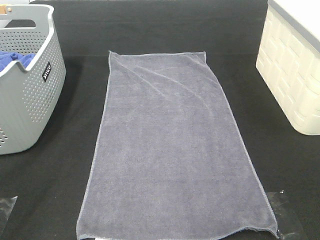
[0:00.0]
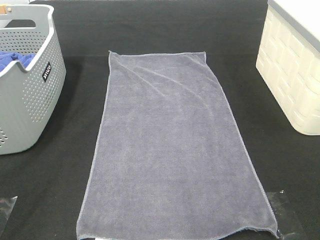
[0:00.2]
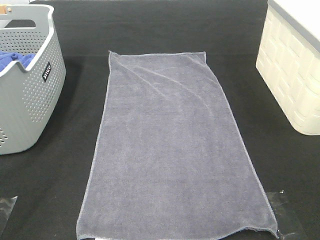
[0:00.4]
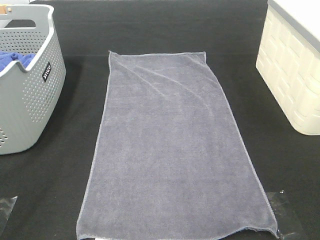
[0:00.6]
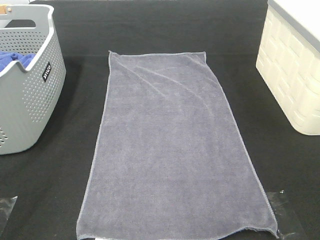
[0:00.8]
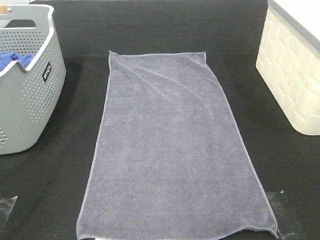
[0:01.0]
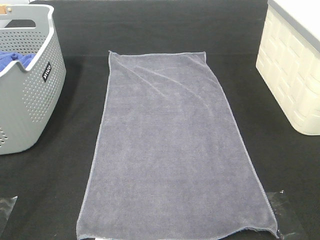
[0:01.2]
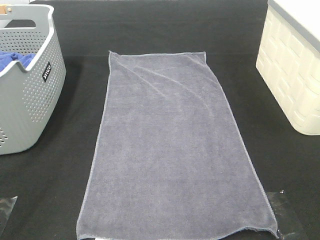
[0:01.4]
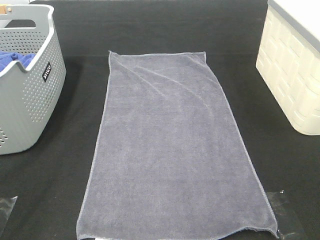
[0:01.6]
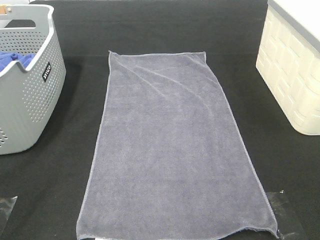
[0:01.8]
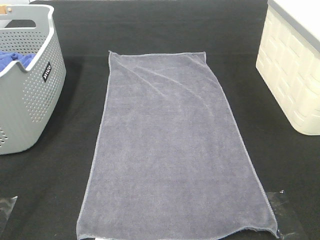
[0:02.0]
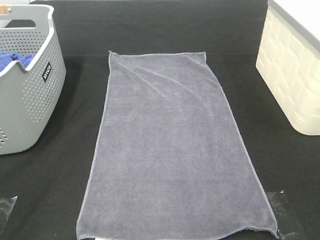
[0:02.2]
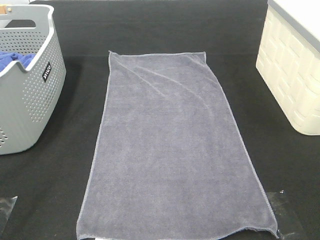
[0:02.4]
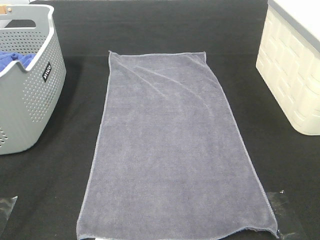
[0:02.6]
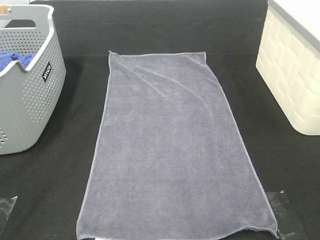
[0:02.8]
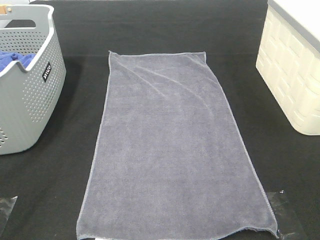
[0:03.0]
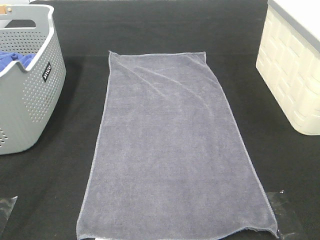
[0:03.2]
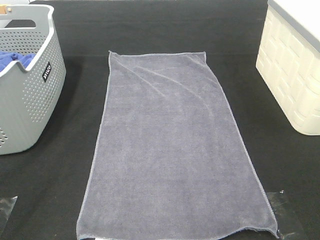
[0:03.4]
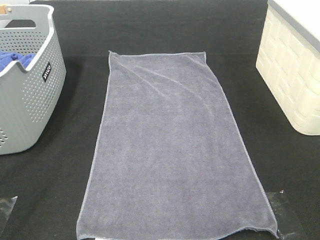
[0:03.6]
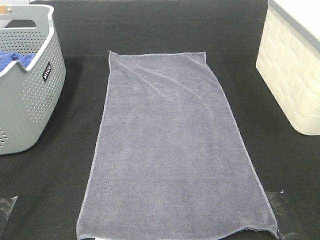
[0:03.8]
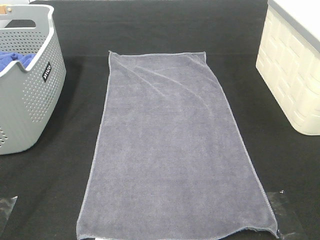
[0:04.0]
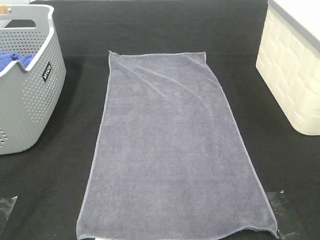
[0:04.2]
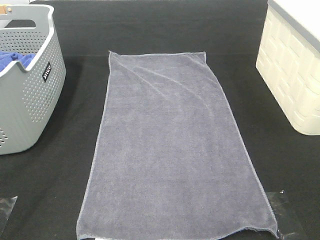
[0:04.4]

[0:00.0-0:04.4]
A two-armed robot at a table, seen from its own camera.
Task of the whole recording: Remove the towel and place it.
3.0 to 4.4 s: The two grippers keep their place.

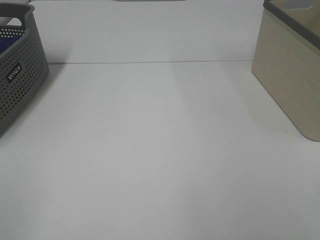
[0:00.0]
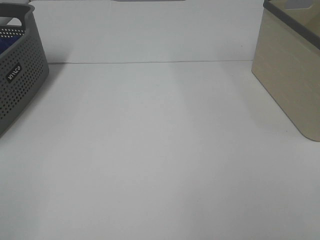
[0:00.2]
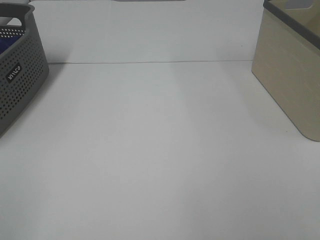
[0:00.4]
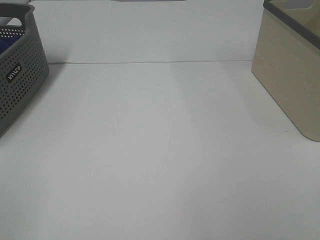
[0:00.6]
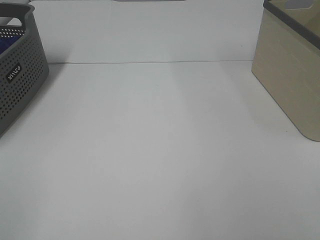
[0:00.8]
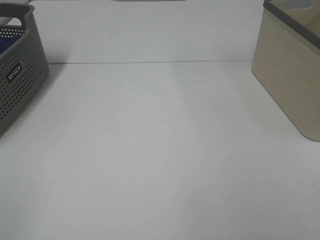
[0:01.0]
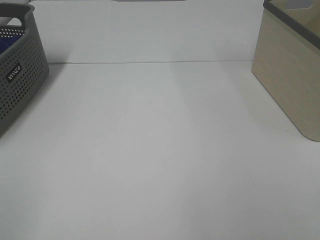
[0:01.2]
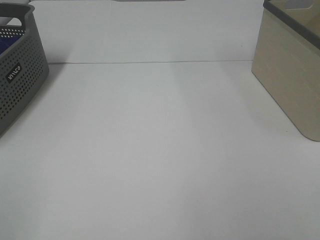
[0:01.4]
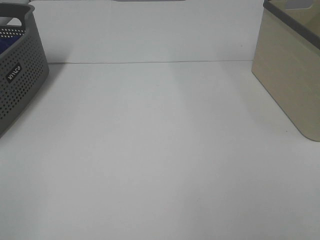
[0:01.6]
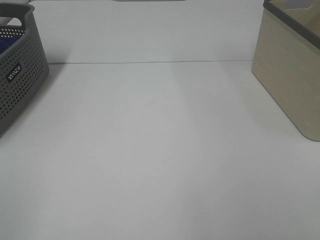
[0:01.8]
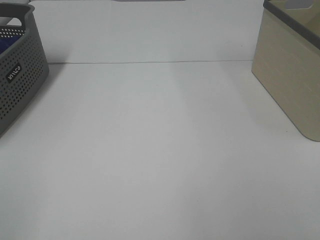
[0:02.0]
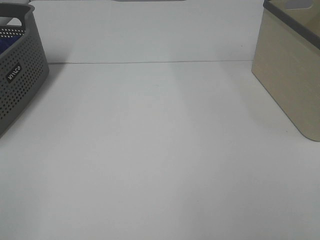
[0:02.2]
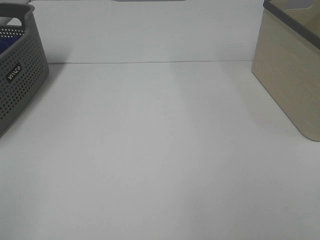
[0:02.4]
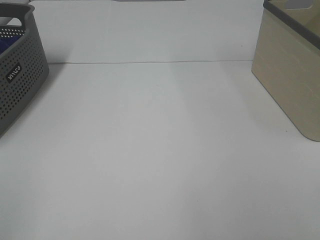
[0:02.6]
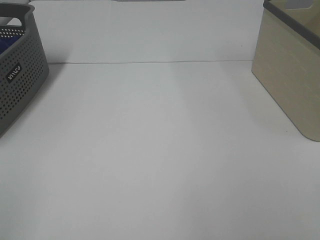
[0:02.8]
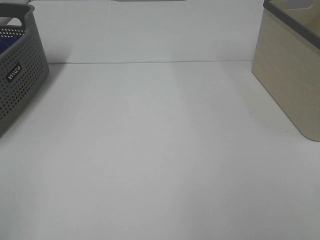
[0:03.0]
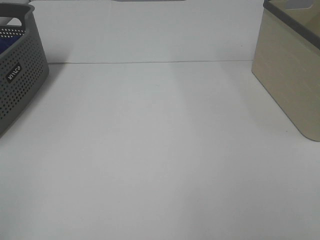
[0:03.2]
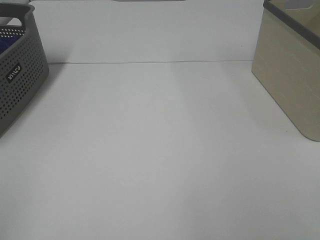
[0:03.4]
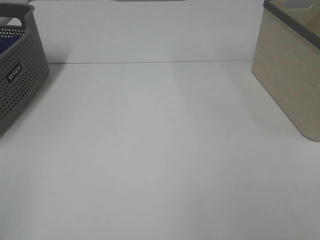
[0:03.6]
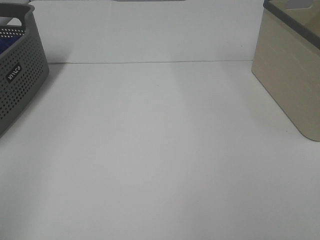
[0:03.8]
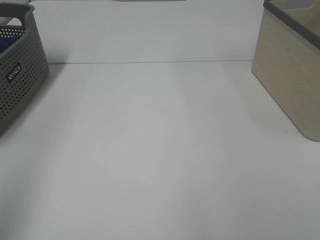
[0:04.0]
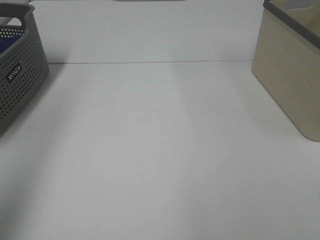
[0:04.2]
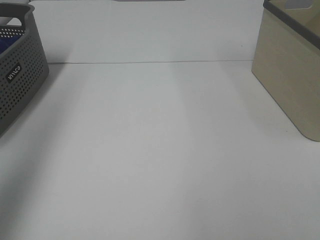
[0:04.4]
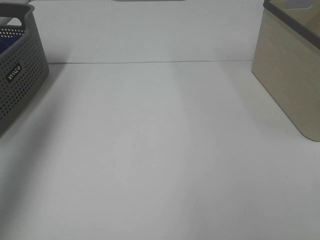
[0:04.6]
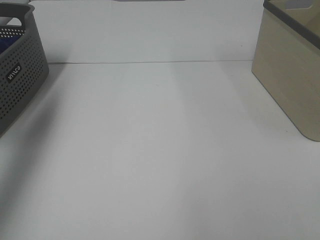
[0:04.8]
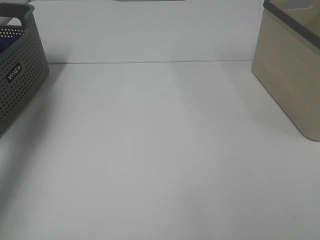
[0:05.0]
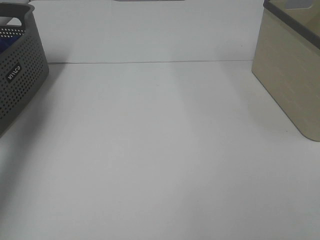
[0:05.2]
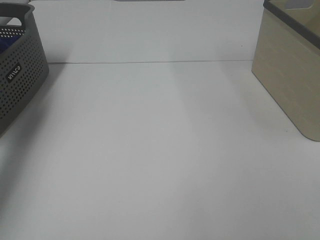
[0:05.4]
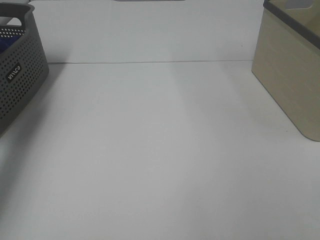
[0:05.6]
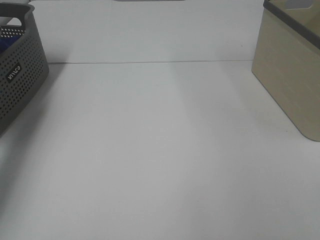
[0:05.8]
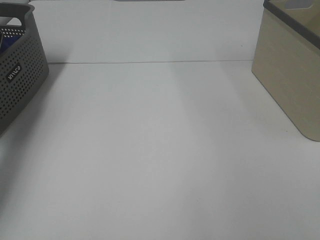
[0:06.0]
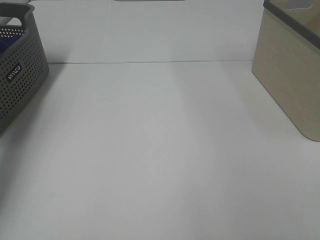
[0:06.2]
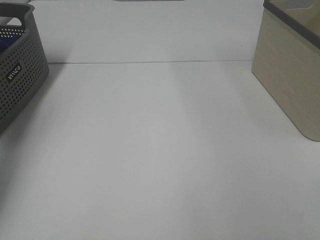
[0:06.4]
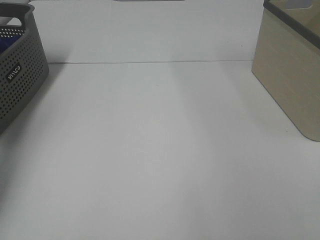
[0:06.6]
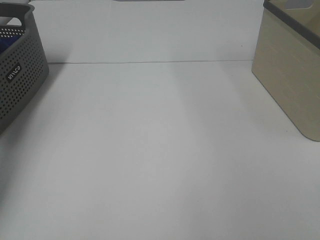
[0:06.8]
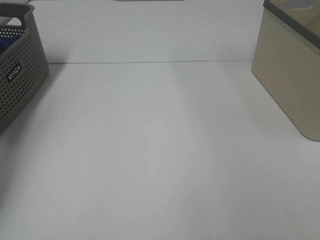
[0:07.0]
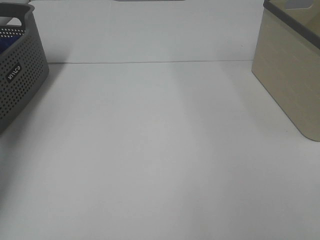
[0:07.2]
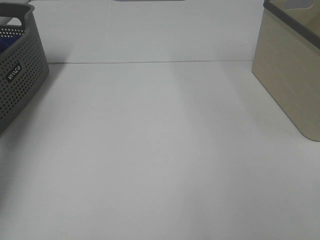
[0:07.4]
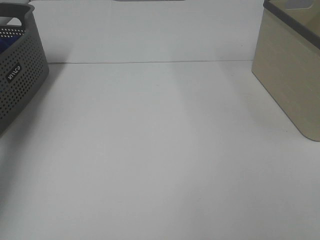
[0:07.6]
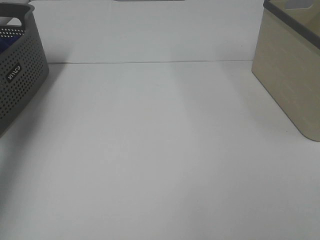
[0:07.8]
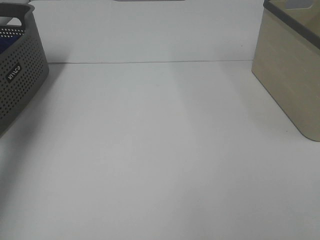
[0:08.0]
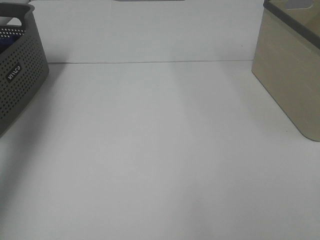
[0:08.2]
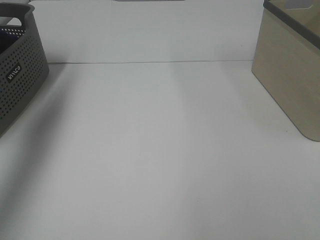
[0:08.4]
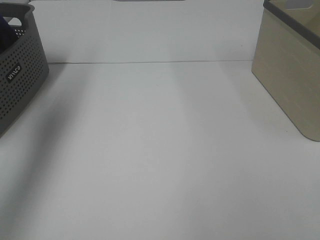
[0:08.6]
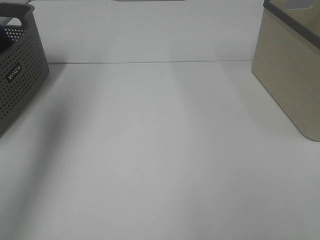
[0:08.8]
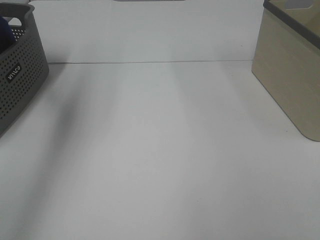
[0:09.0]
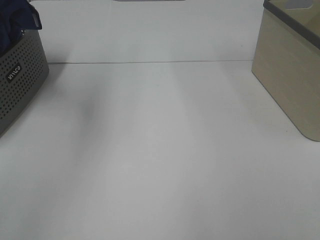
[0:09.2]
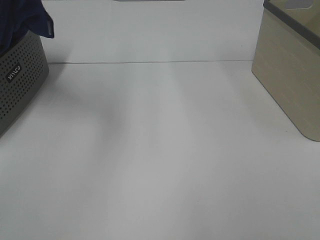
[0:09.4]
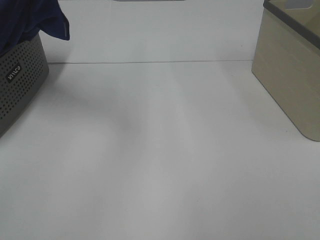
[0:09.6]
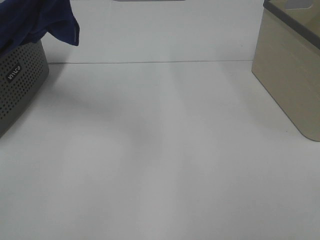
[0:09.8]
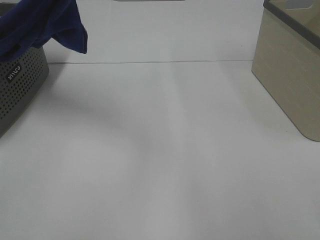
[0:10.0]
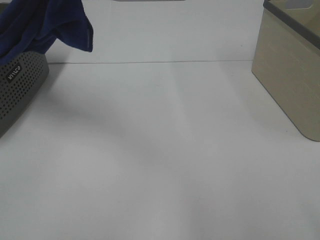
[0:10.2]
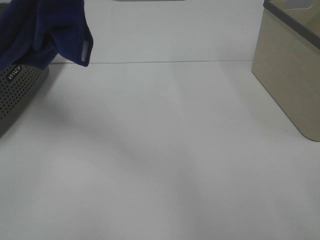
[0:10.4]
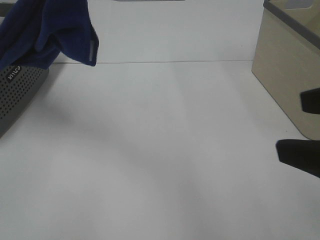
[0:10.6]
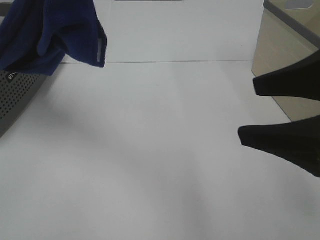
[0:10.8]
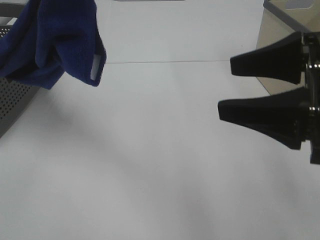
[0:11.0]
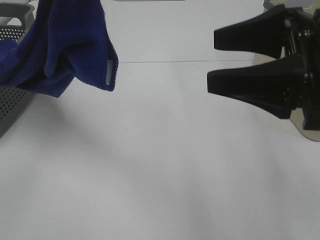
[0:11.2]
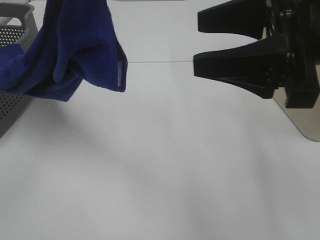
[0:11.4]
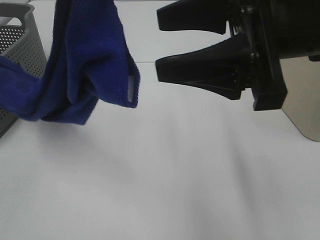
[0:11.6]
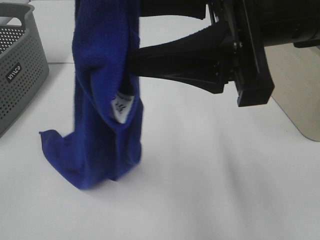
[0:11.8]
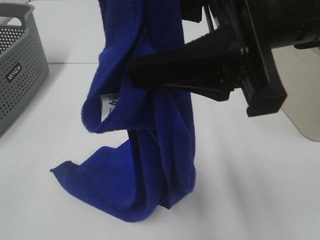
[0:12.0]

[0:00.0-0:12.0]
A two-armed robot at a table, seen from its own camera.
Task of the whole recording: Remove the towel and place it.
0.0 to 3.0 s: Neither gripper changes place.
3.0 to 4.4 s: The left gripper travels forward and upward by roughly 30 cm.
4.4 to 6.0 s: The left gripper is displaced downward and forward by roughly 35 cm.
7.6 to 9.0 s: The left gripper is displaced upward, to the right and backward by roughly 30 cm.
9.0 to 10.4 s: The left gripper goes about 20 cm to the right and backward. Meanwhile the right gripper moves forward, approximately 5 cm.
10.4 to 12.0 s: The right gripper shifts roughly 20 cm forward and to the left.

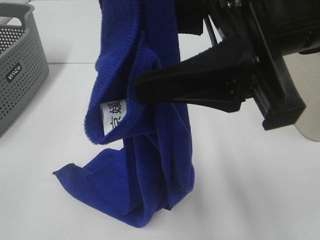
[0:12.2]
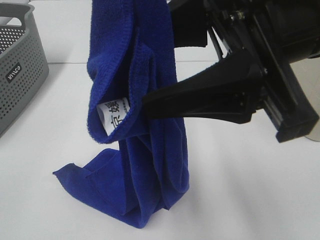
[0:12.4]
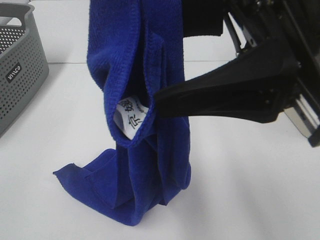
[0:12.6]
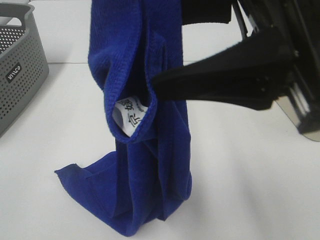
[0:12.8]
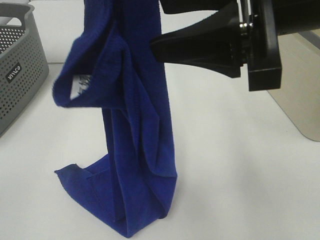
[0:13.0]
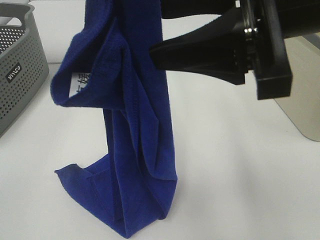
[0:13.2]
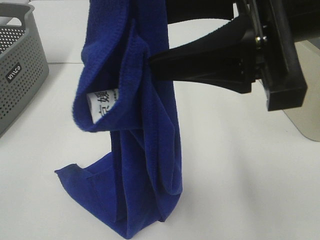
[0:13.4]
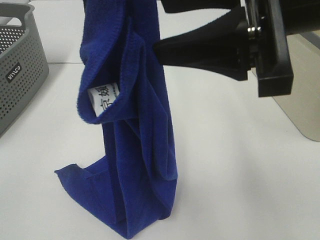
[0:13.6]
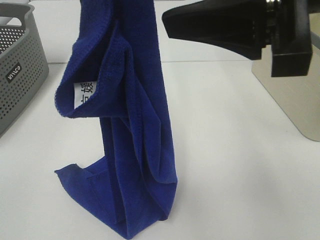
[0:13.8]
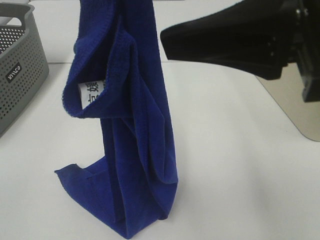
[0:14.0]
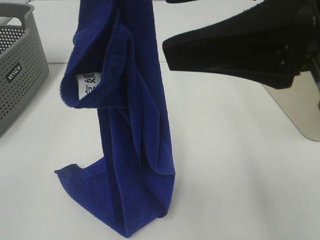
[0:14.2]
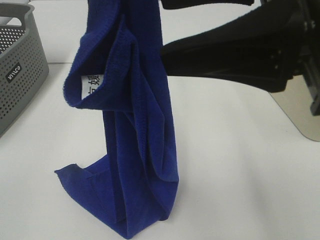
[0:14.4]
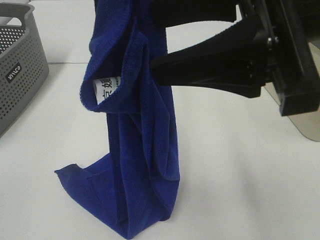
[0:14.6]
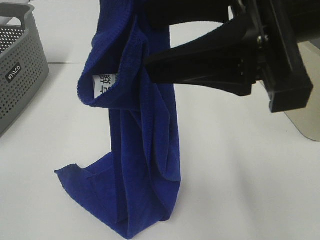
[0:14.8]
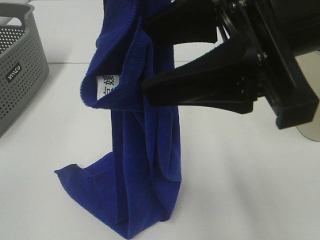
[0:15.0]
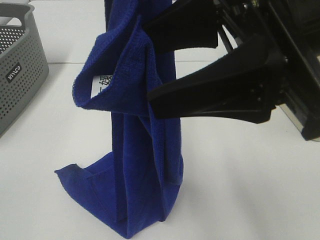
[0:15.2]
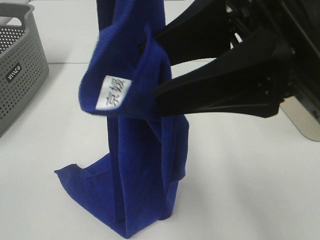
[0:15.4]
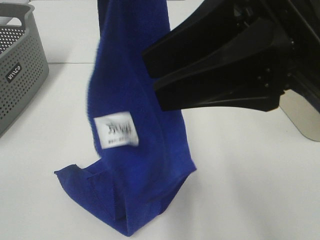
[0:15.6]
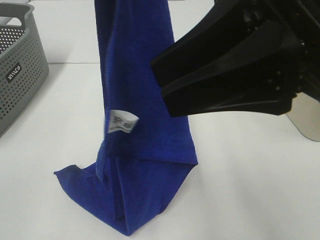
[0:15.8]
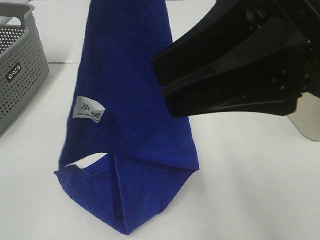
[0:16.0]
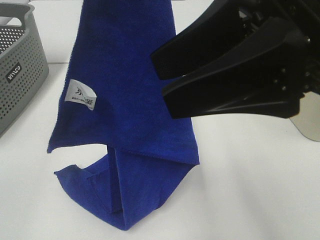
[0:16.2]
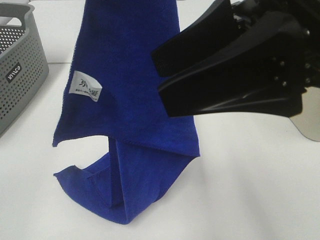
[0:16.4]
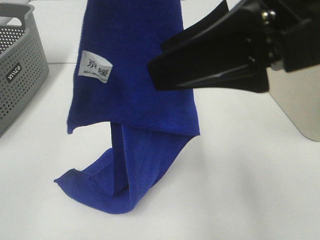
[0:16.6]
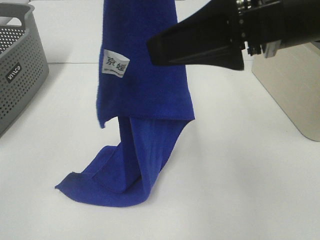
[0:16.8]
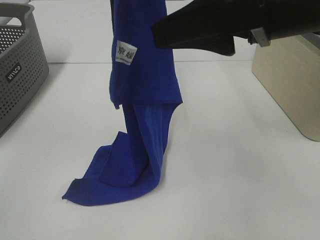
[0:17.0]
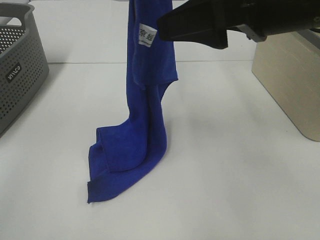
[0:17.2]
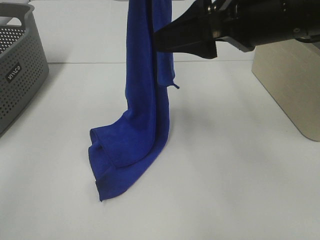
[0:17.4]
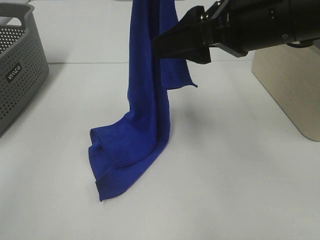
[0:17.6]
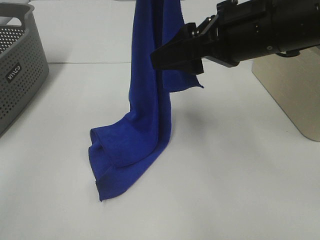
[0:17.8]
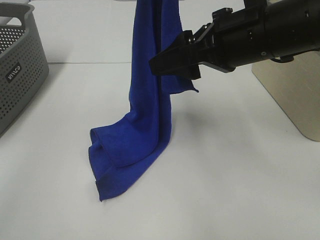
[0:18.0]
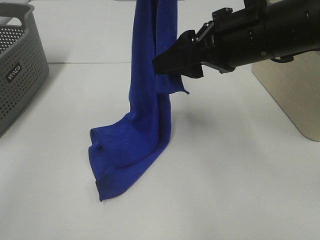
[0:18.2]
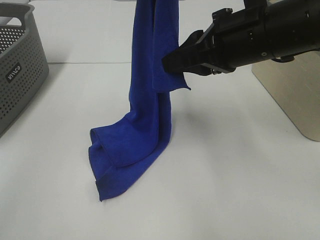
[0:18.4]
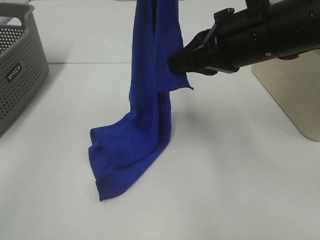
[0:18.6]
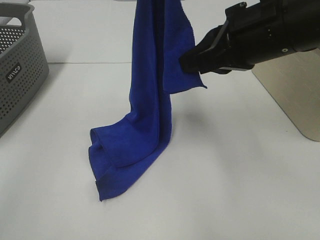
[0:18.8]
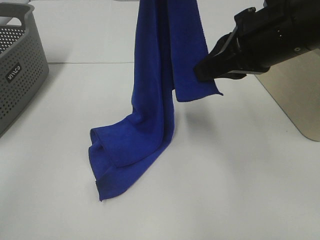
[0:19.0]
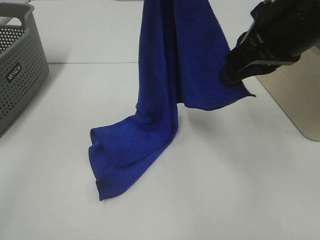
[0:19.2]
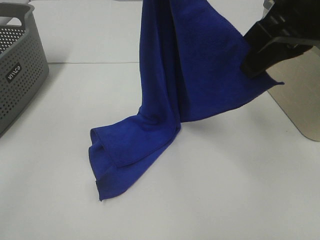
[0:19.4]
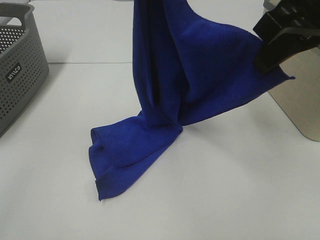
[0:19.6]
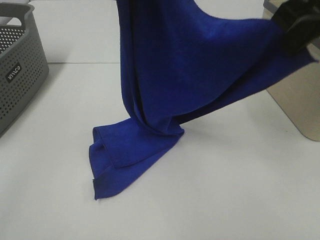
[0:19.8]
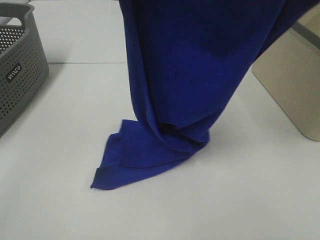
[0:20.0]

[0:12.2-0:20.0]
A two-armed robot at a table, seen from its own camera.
Task of the whole recording: Remove the towel and place it.
Step, 12.2 to 17.0 s: Right hand: grab a corner of the blue towel and straighten it.
12.2 to 13.8 s: The right gripper moves some 5 cm.
15.4 to 16.8 s: The right gripper opens.
16.8 to 18.4 s: The right gripper heads forward and downward, covering some 10 cm, and closes, while the left gripper is displaced forward by about 5 cm.
18.4 to 20.0 s: The right gripper is displaced upward by roughly 15 cm.
